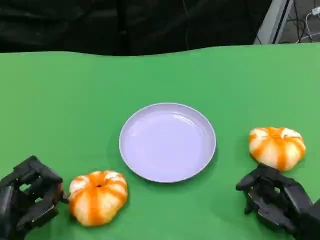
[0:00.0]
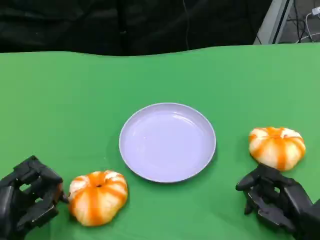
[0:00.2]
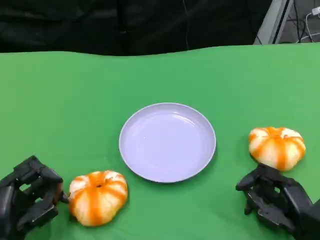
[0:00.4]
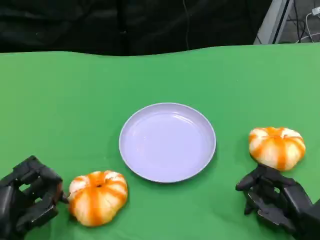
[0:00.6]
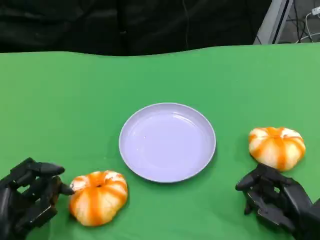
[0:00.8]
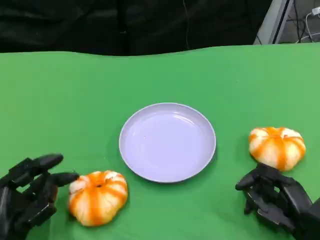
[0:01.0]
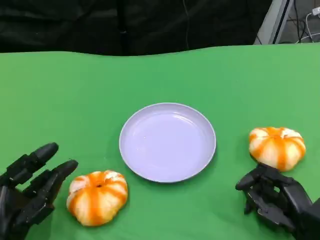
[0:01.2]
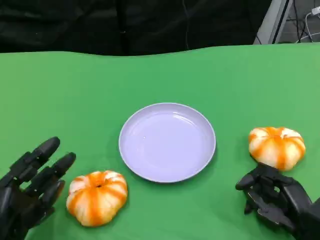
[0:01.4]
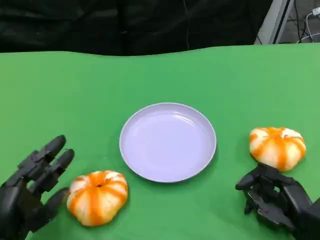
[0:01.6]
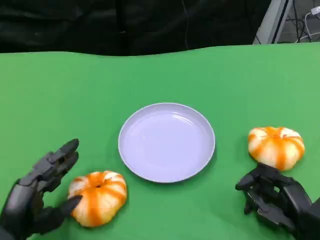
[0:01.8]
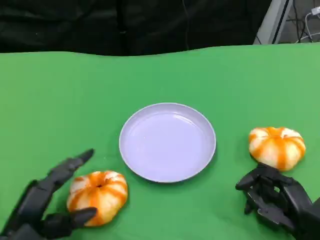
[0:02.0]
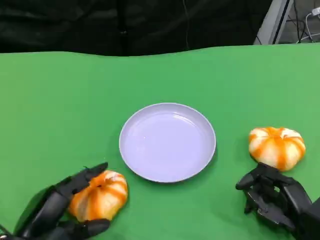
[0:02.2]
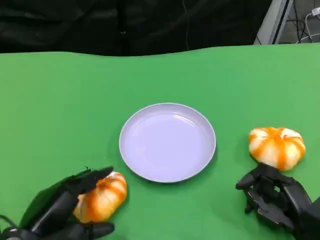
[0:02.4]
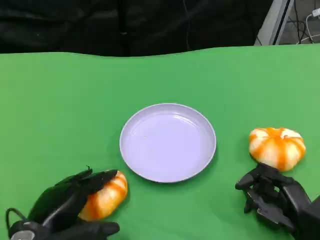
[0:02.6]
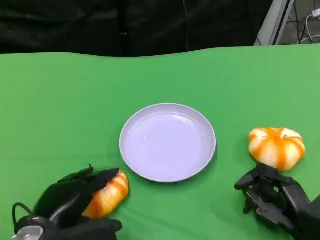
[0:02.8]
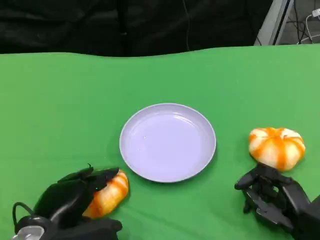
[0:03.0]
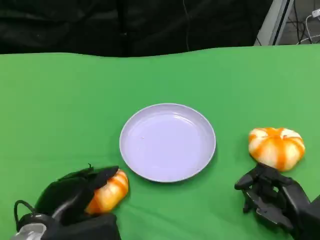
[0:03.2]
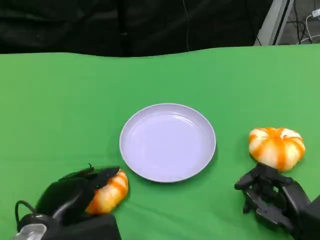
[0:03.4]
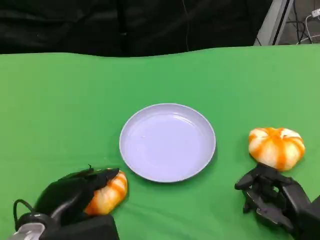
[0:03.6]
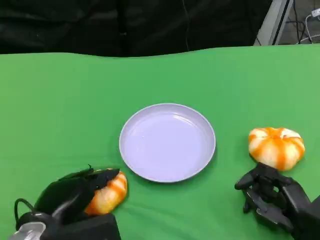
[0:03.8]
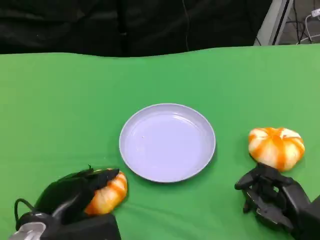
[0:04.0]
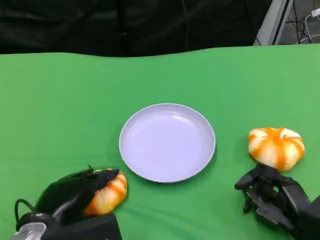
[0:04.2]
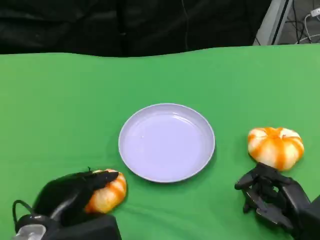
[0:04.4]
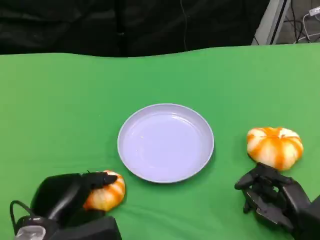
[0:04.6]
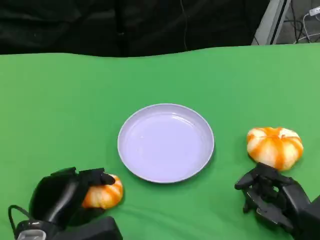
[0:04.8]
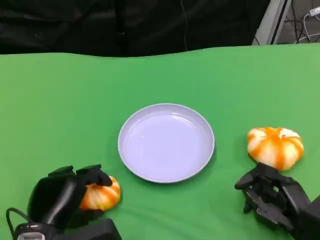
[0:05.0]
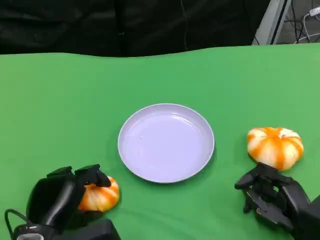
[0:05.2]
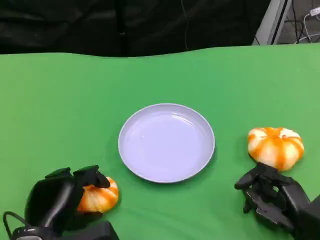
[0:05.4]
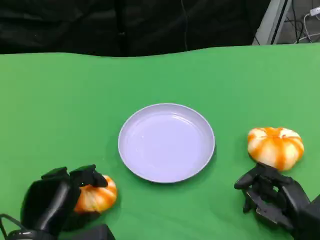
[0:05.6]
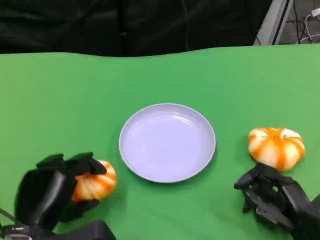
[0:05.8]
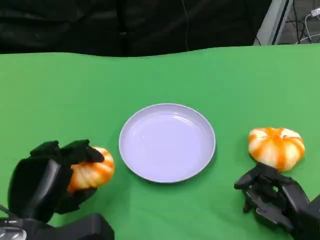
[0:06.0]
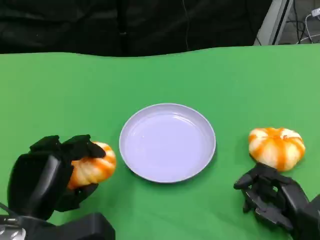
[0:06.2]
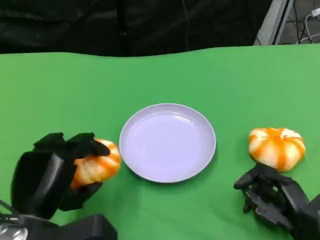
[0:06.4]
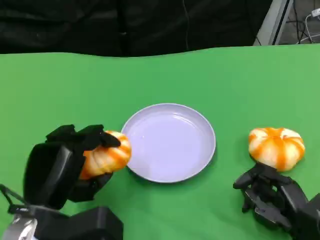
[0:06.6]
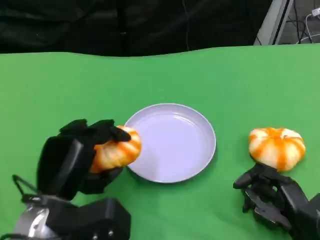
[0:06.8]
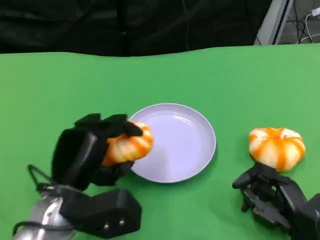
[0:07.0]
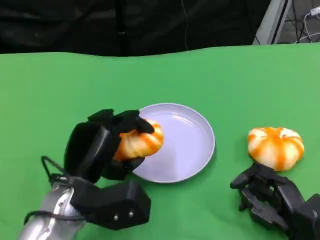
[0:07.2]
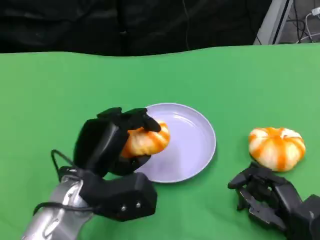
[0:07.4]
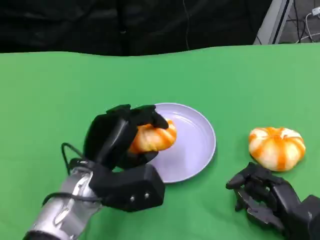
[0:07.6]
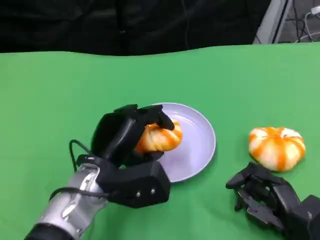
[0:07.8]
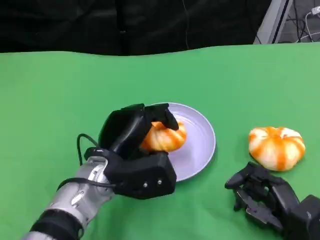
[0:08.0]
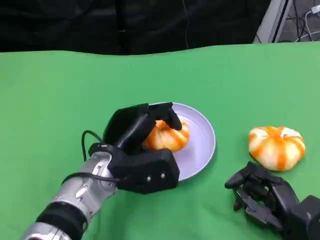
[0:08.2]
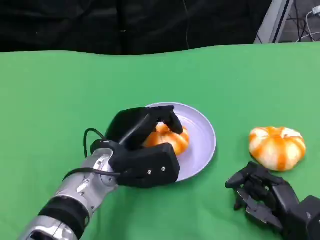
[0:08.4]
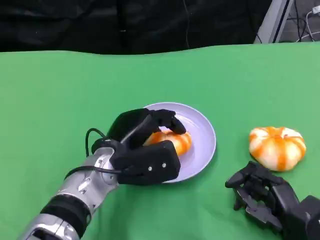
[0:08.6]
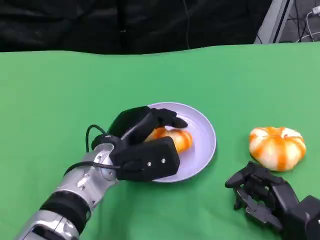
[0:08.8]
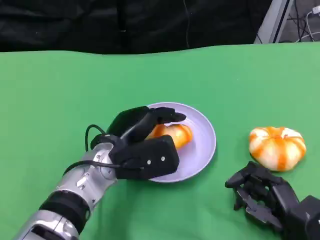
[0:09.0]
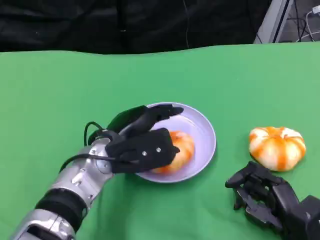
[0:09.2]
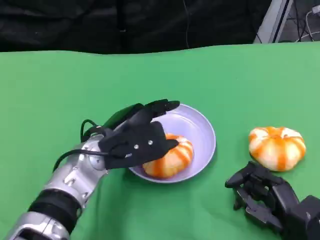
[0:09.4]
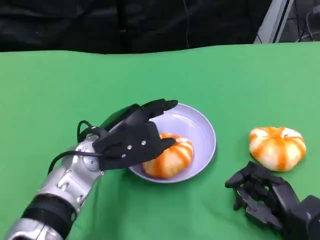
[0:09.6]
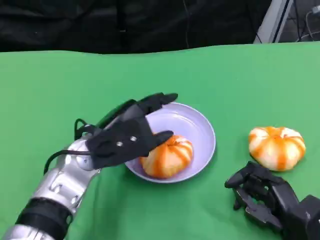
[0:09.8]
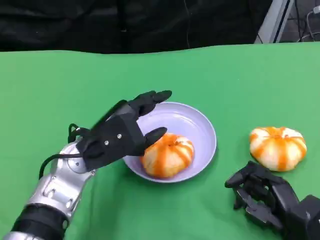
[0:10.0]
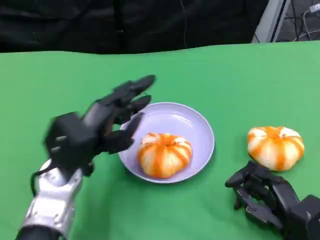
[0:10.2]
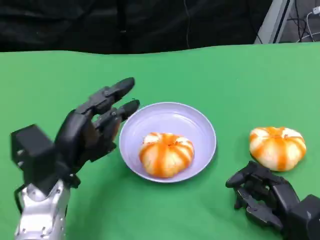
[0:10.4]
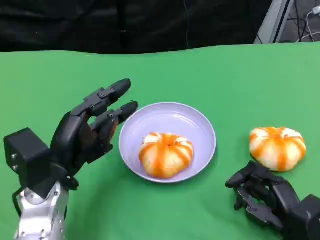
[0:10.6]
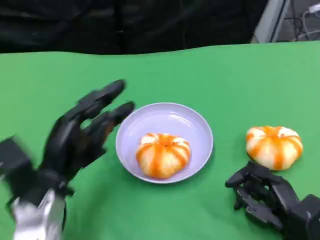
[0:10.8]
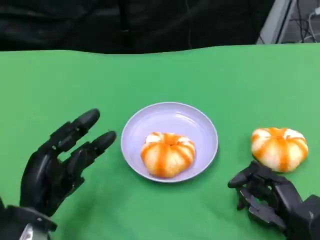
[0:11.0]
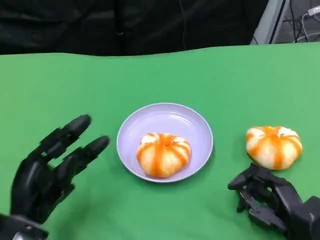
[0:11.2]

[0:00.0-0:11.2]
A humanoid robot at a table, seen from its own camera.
Task of the whole recording: Grasp the bread from the table and place it into the plate.
0:00.0 to 0:01.6: The hands move only a little.
0:01.6 to 0:03.2: The left hand heads to the right, covering approximately 5 cm.
0:03.2 to 0:04.8: There are only small adjustments of the hands.
0:04.8 to 0:06.4: The left hand heads upward, covering some 5 cm.
0:06.4 to 0:08.0: The left hand heads forward and to the right, covering about 15 cm.
0:09.6 to 0:11.2: The left hand heads to the left, backward and downward, covering about 15 cm.

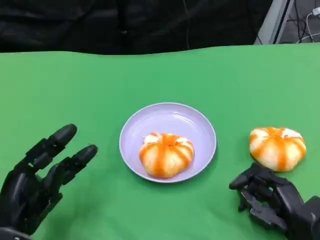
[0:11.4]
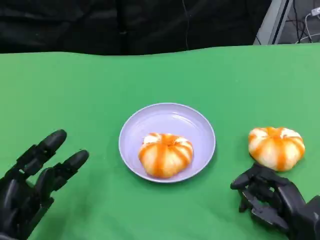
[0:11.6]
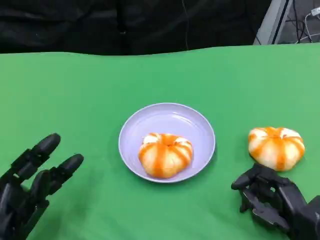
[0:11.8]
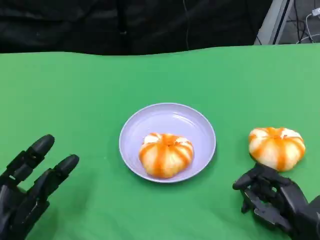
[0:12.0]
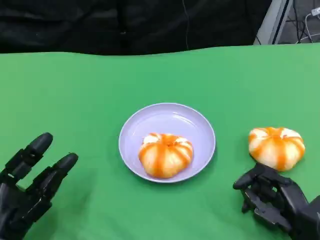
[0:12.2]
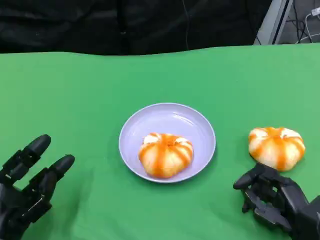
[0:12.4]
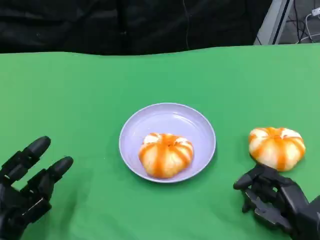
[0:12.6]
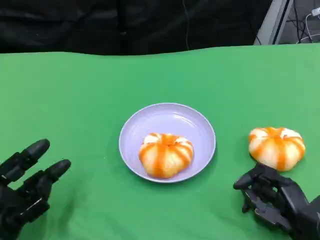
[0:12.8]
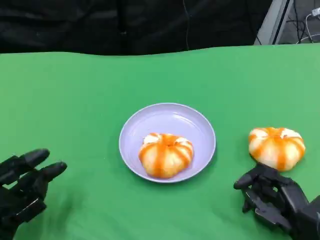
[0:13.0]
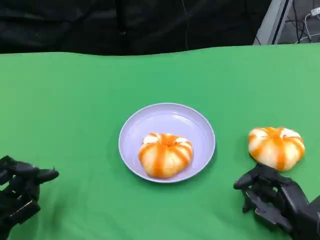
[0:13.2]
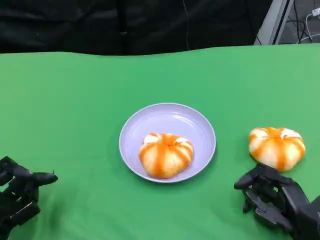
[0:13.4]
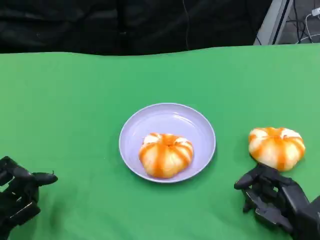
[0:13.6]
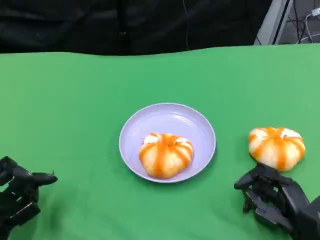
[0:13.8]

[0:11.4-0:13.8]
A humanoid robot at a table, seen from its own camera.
Task of the whole recording: Grasp the bread from the table and place it into the plate.
0:11.4 to 0:12.6: The hands move only a little.
0:12.6 to 0:13.8: The hands stay close to where they were, moving slightly.

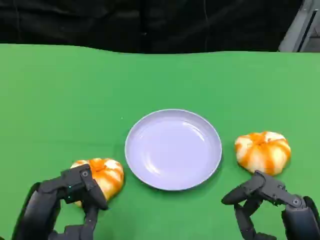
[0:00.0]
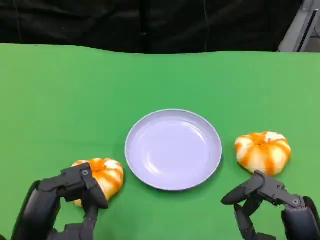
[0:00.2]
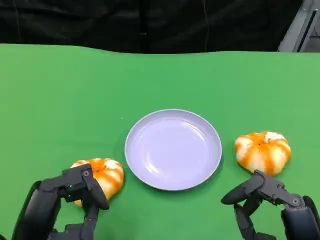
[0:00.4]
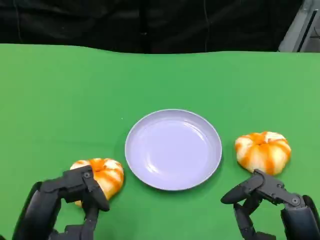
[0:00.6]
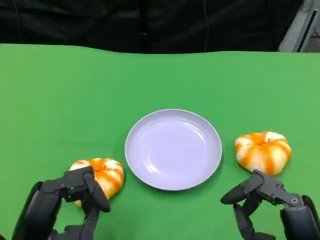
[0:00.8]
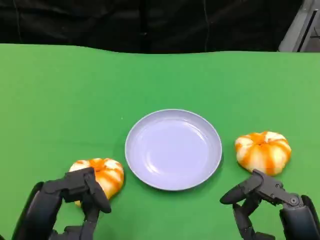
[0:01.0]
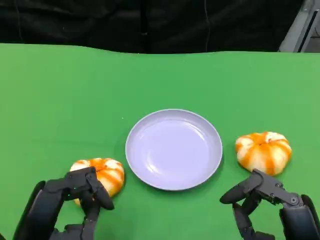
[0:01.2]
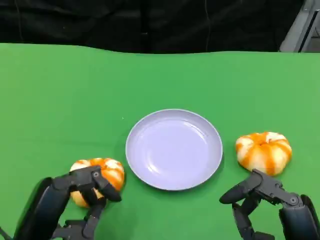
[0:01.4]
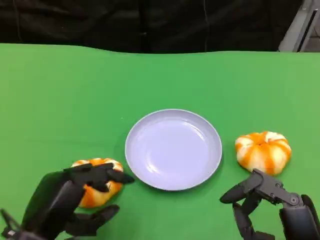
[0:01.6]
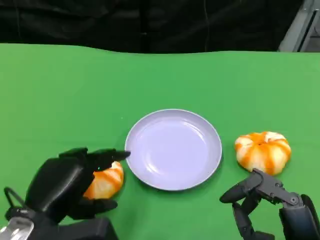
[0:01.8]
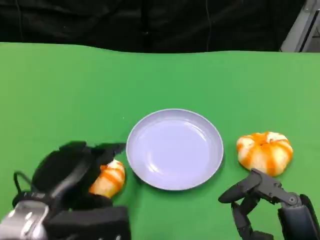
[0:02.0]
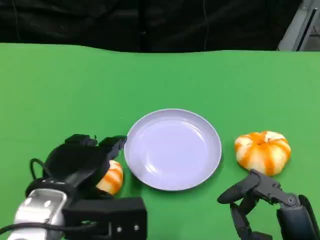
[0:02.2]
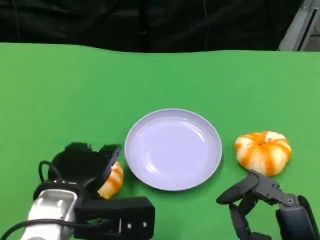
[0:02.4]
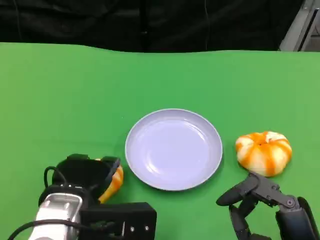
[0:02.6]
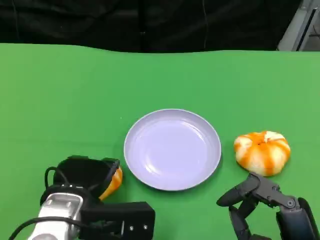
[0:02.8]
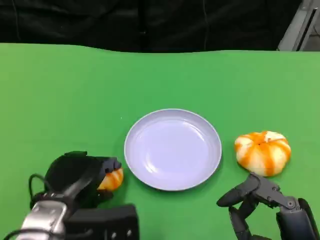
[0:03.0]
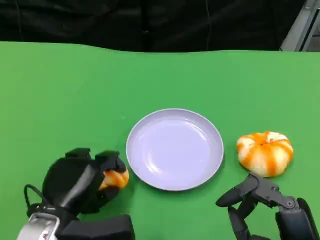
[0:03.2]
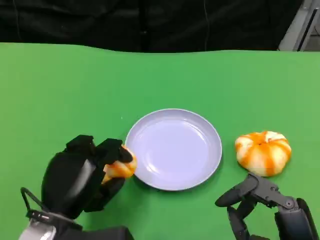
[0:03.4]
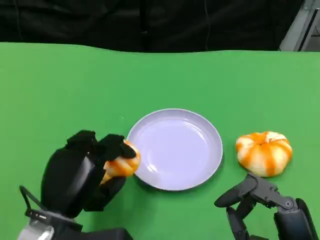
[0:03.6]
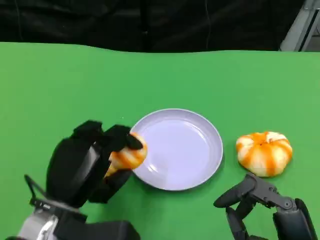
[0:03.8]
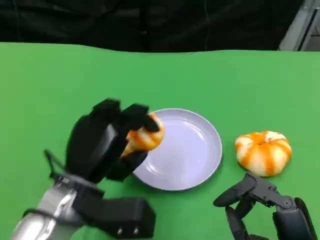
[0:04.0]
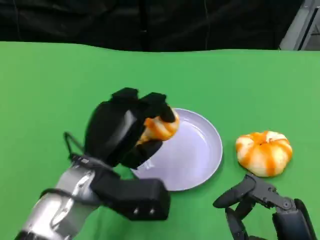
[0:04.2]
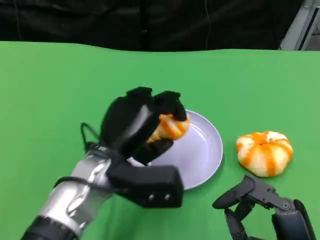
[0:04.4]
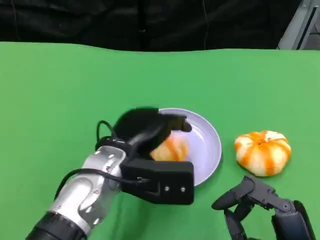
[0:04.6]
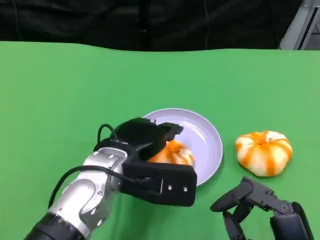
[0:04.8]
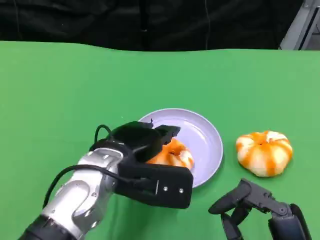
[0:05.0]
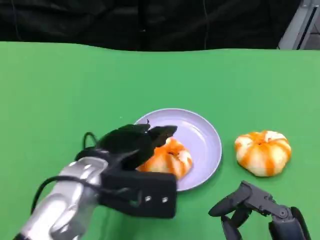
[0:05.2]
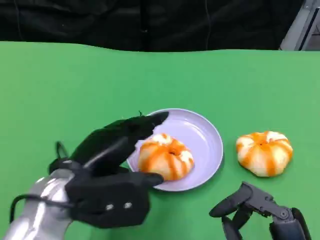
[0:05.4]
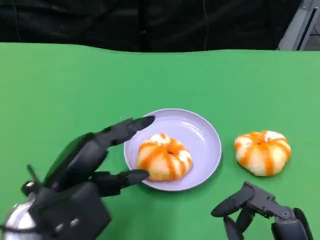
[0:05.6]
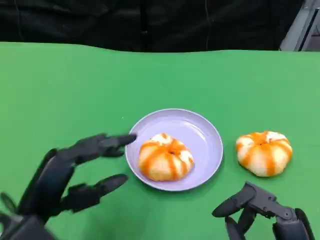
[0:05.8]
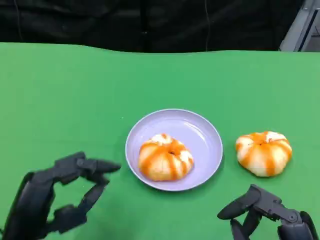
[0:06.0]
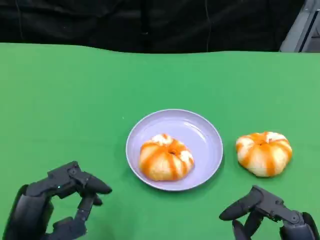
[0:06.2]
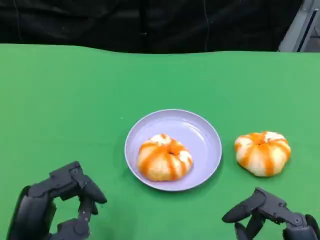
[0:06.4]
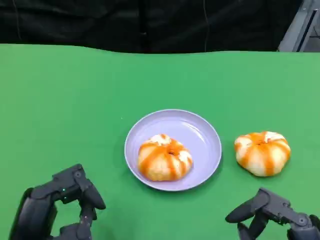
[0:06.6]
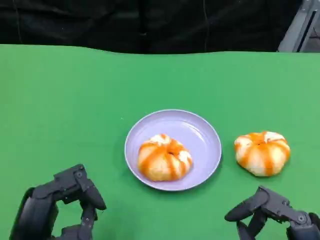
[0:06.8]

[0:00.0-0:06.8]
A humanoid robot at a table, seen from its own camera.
Task of the whole recording: Grasp the bread from the table and place it into the plate.
0:00.0 to 0:01.4: The hands stay close to where they were, moving slightly.
0:01.4 to 0:02.8: The left hand heads forward and to the right, covering roughly 10 cm.
0:05.4 to 0:06.8: The left hand travels backward by some 10 cm.
